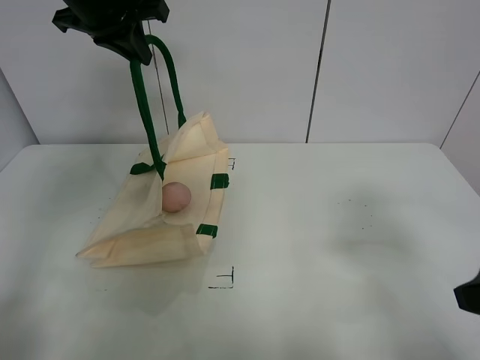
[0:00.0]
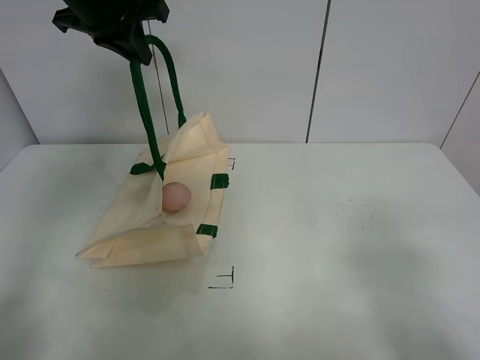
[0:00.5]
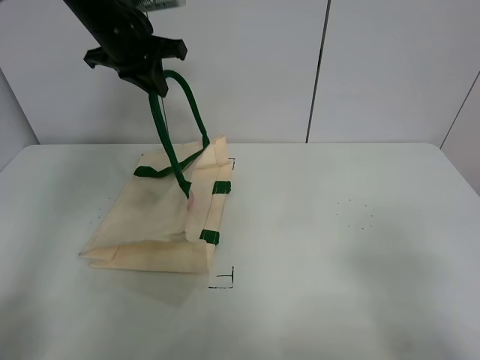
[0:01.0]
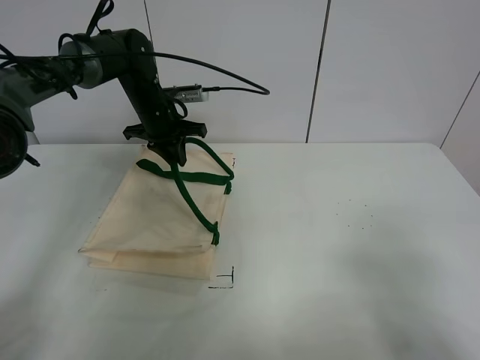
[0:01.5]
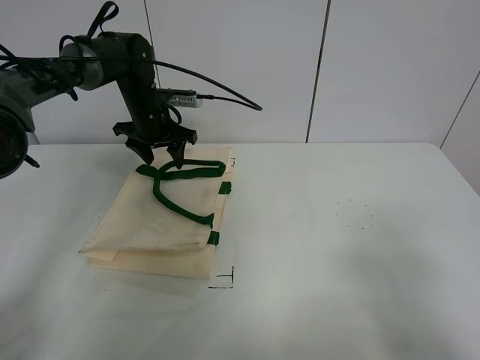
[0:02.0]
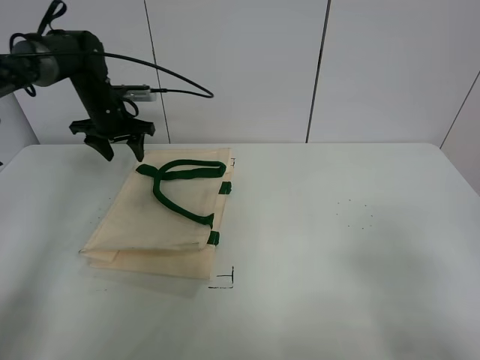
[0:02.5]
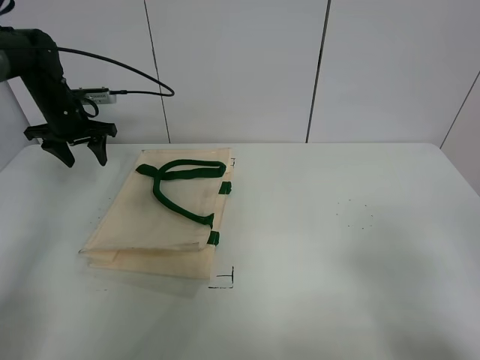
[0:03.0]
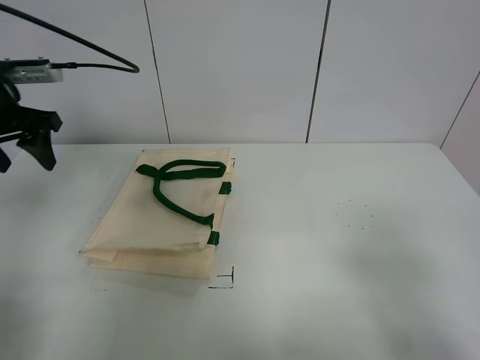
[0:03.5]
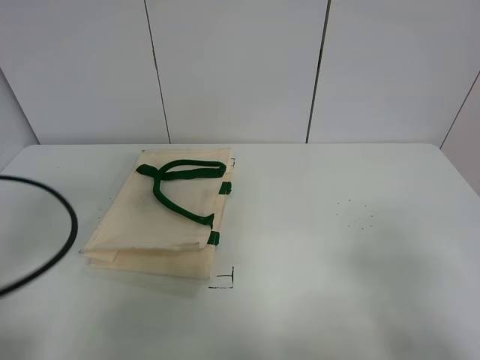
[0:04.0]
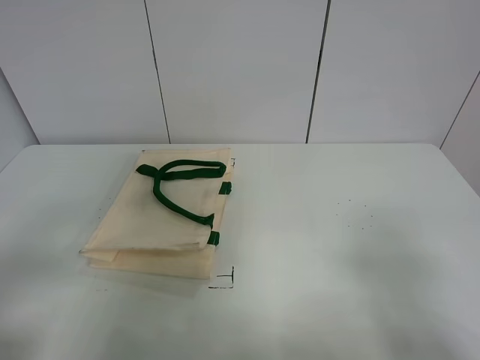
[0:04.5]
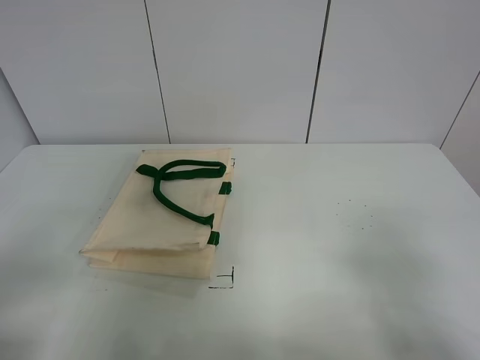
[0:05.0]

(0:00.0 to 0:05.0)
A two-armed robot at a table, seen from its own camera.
Task of the whole recording: open the white linen bag and put the peach in the bag.
Step, 0:00.0 - 0:02.0: Put down the handbag with left gripper.
0:00.0 - 0:02.5: The left gripper is displaced downward, forward and to the left by some 25 cm, and opens up. The right gripper travels backward by roughly 10 cm.
0:02.5 - 0:05.0: The left gripper goes roughly 50 cm backward.

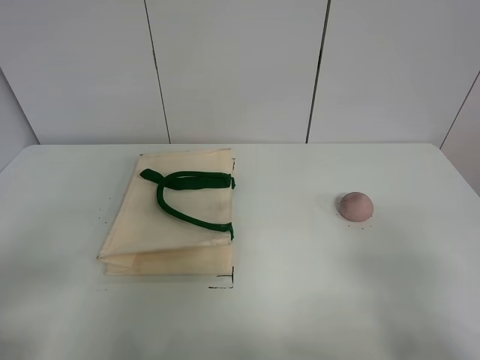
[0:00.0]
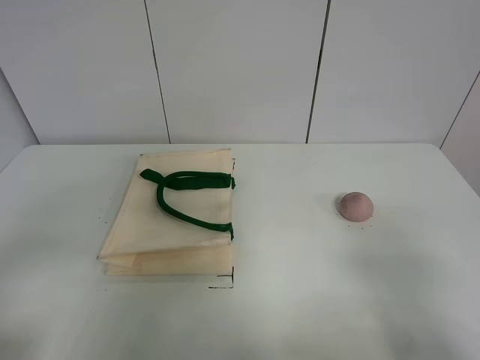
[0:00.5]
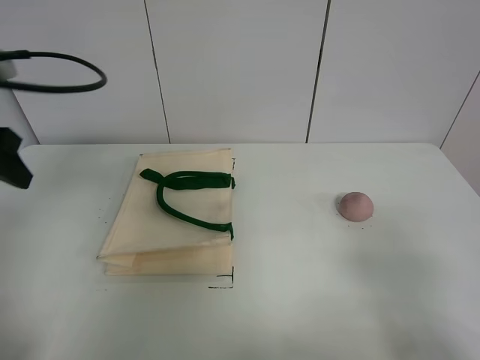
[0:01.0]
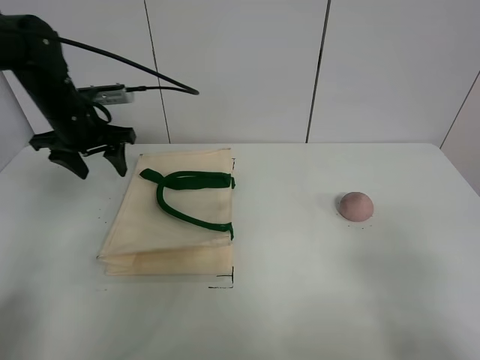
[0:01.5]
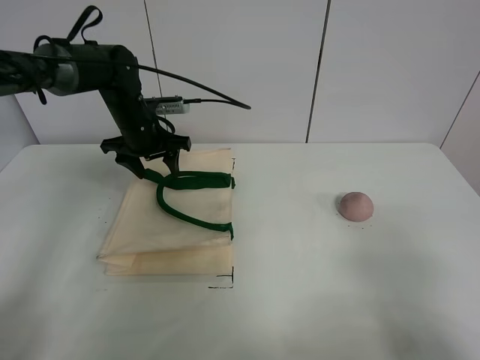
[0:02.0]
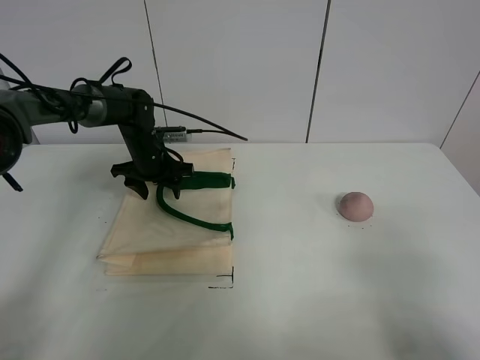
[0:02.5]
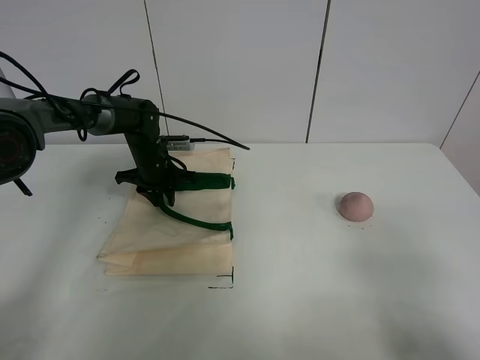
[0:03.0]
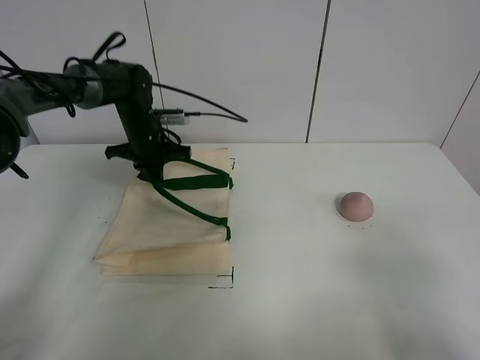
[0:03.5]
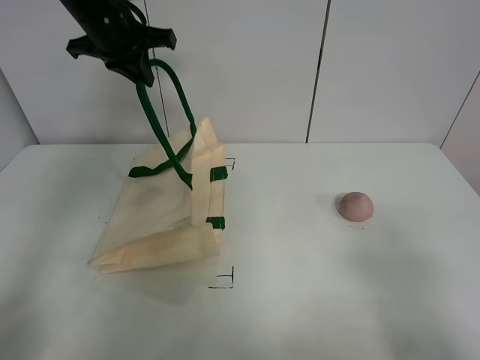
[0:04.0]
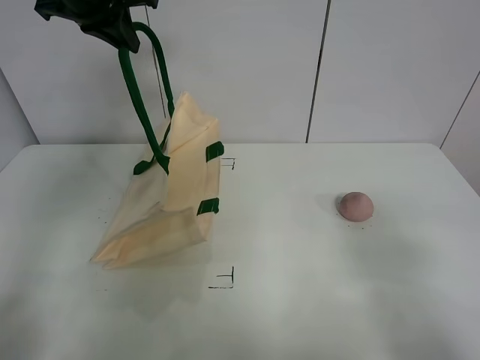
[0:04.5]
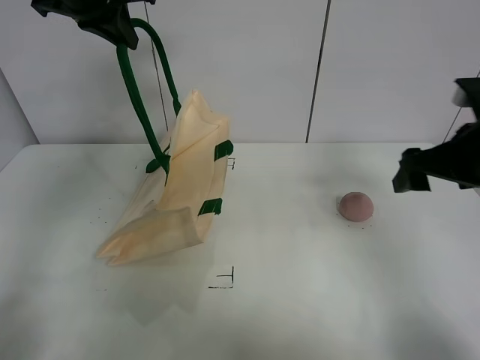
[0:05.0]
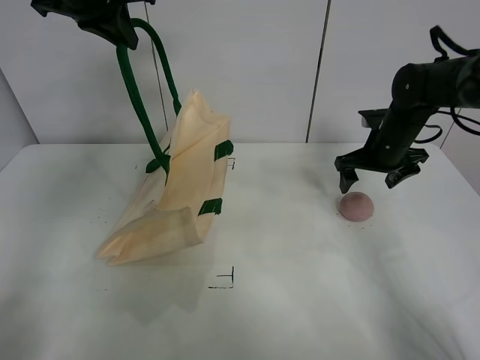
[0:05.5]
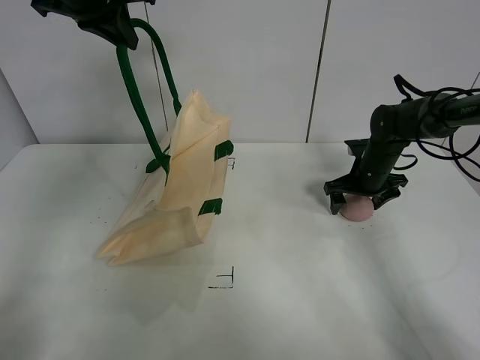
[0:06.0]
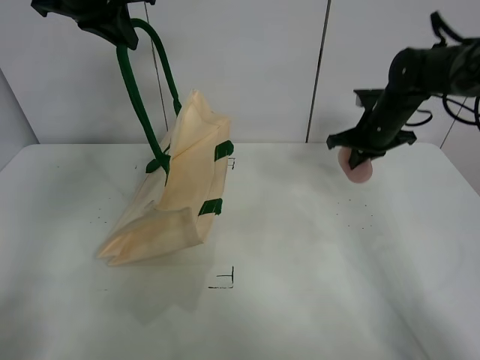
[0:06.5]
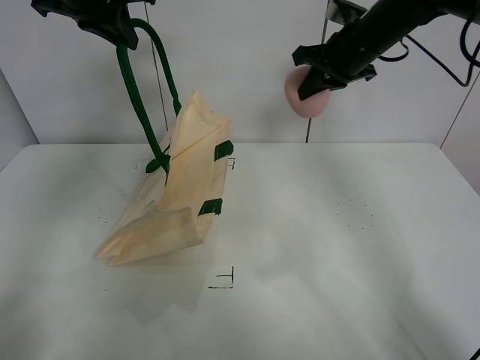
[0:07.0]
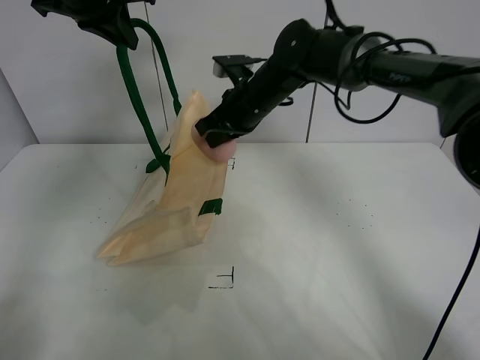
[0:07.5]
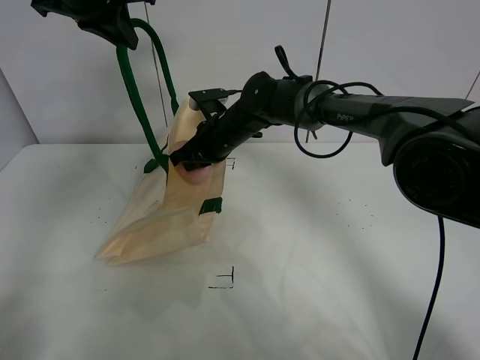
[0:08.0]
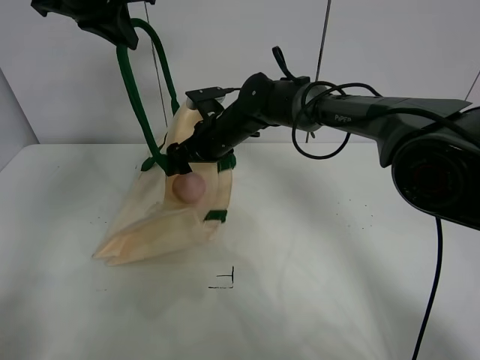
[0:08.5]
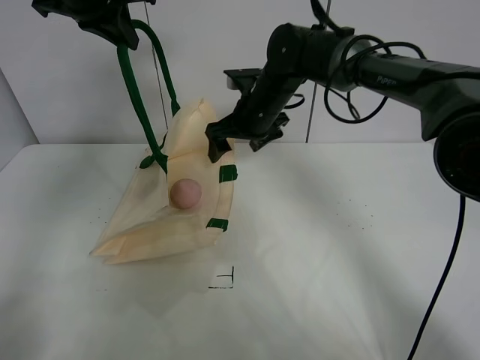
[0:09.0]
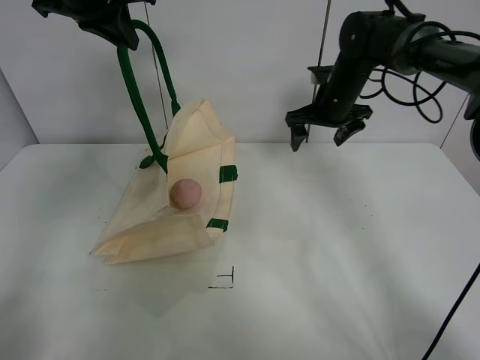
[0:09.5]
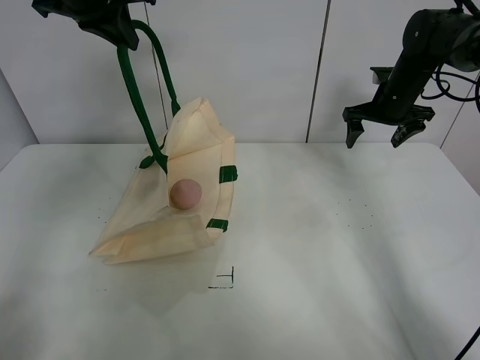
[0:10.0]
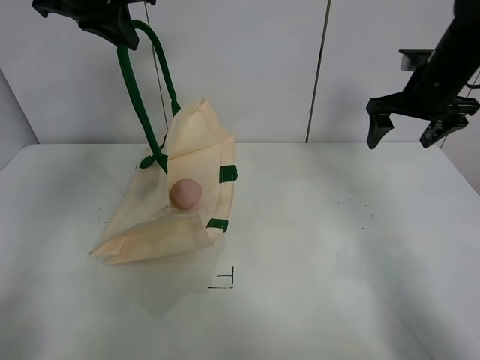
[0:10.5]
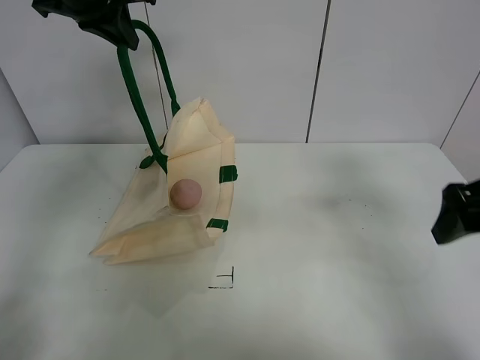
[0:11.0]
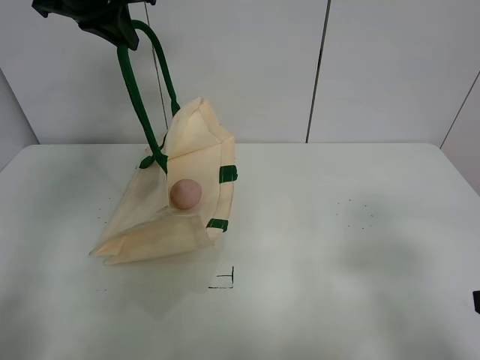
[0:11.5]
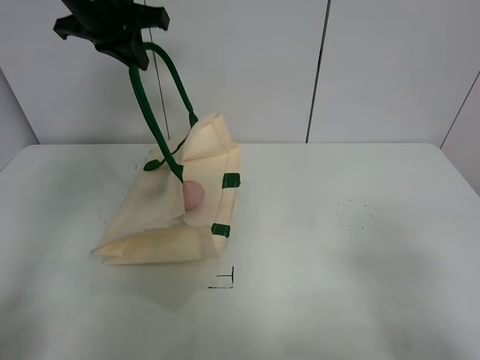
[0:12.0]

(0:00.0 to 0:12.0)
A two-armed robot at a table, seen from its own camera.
Task of the whole recording: open the white linen bag and put the peach in the bag.
Step, 0:00.0 - 0:04.5: Lift the handbag with left gripper.
Step, 0:05.0 - 0:06.0: Grasp the peach with right gripper.
Step, 0:06.5 - 0:08.5: Place the peach in the handbag with right gripper.
0:00.0 - 0:02.0: The left gripper goes some 40 cm forward.
0:02.0 - 0:04.0: The left gripper is displaced upward by some 20 cm, and closes its fingers.
0:04.0 - 0:06.0: The left gripper moves some 5 cm; the right gripper moves forward, roughly 40 cm.
0:06.0 - 0:08.0: The right gripper travels to the left by some 25 cm, and closes up.
0:08.0 - 0:10.0: The right gripper moves to the right, roughly 30 cm, and opens.
0:10.0 - 0:12.0: The left gripper ends up approximately 5 cm from where it was, while the right gripper is displaced backward by approximately 50 cm.

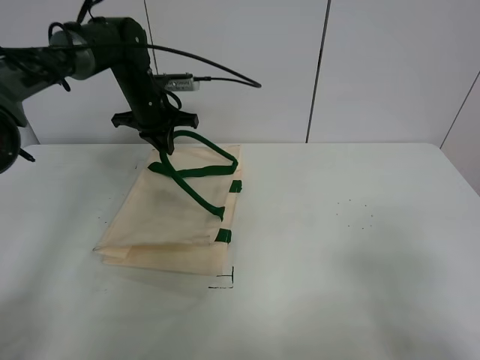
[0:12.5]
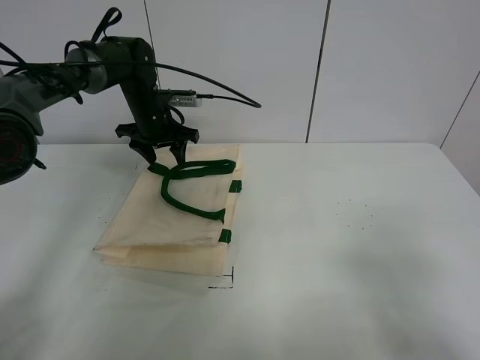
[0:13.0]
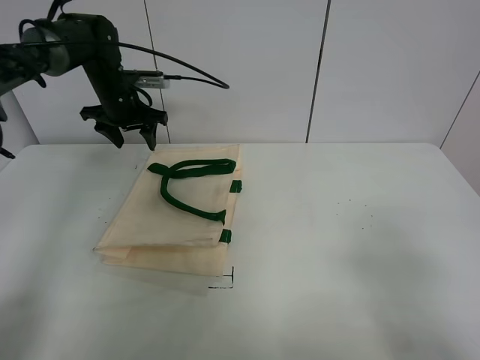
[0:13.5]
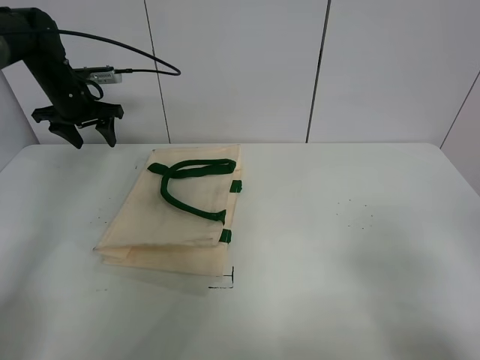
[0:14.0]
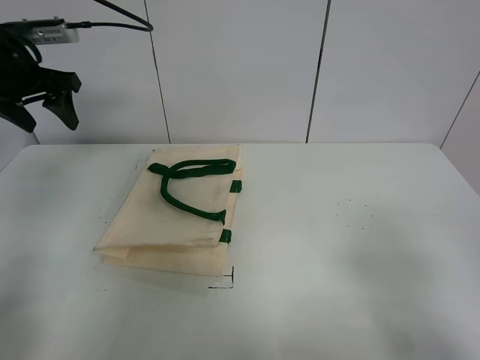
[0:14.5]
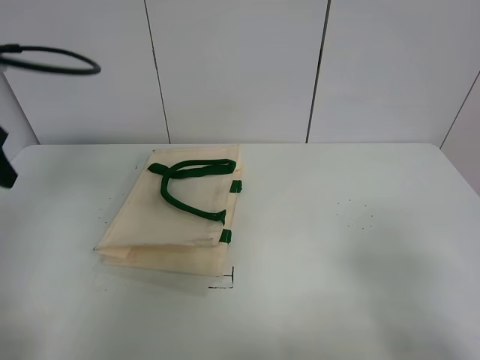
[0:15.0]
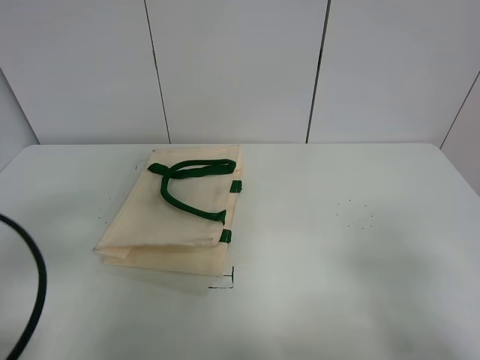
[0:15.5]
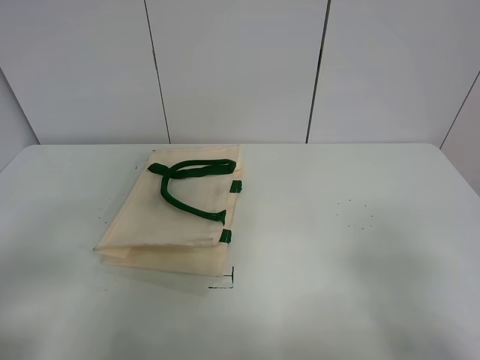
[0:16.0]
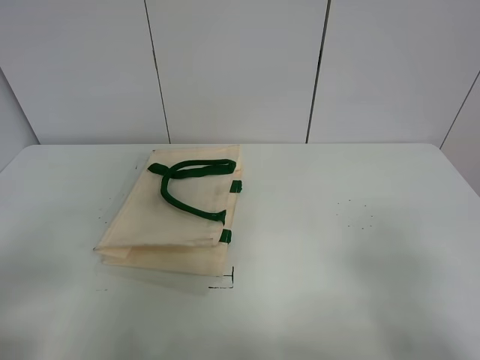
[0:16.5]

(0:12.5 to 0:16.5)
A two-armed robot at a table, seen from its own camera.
Task of the whole recording: open the white linen bag and put the peach in the bag.
0:12.5 - 0:14.5: The left gripper moves to the left, upward and backward, roughly 20 cm, and opens its fingers.
0:14.5 - 0:16.5: The left gripper goes approximately 35 cm backward.
